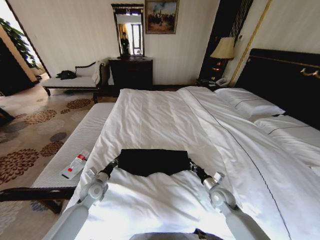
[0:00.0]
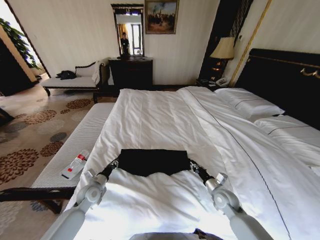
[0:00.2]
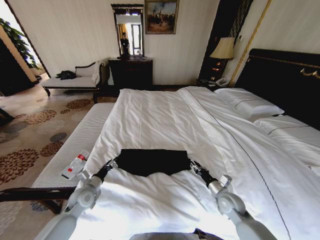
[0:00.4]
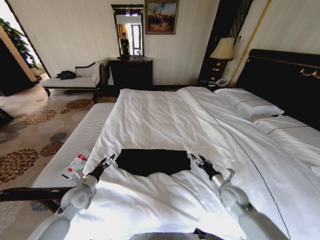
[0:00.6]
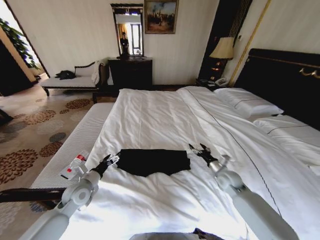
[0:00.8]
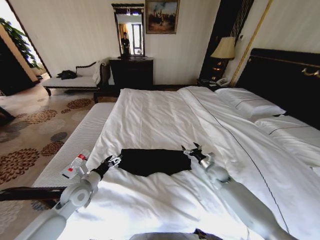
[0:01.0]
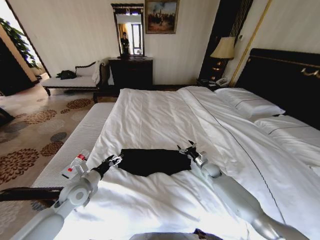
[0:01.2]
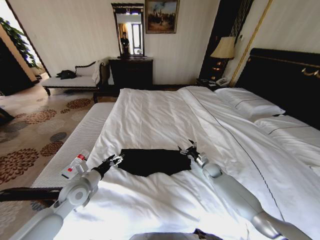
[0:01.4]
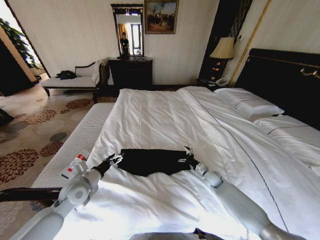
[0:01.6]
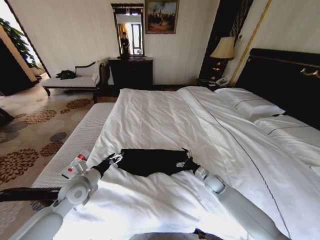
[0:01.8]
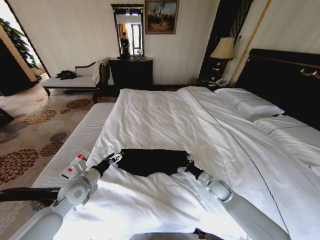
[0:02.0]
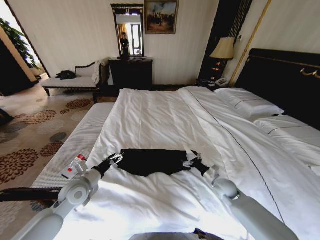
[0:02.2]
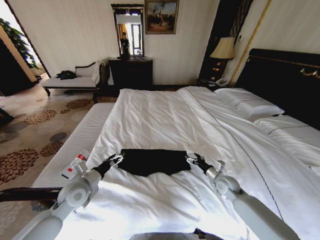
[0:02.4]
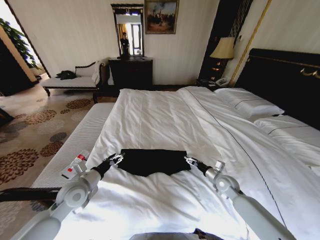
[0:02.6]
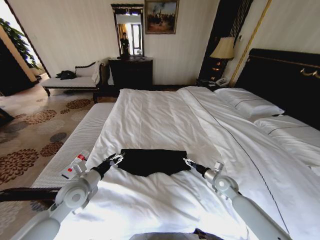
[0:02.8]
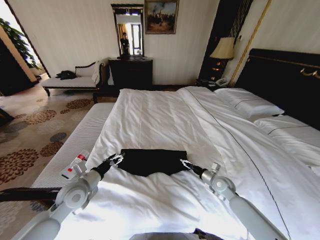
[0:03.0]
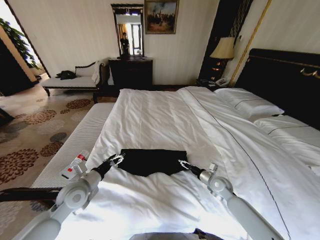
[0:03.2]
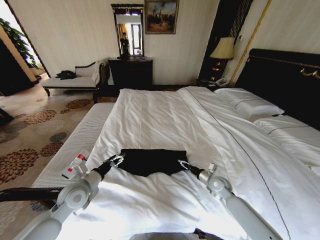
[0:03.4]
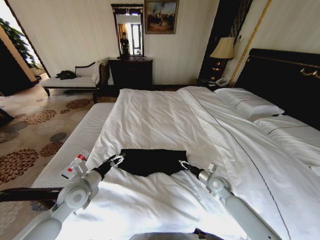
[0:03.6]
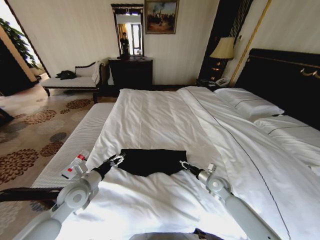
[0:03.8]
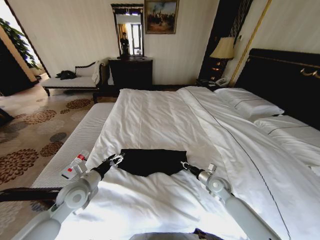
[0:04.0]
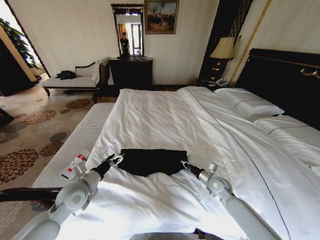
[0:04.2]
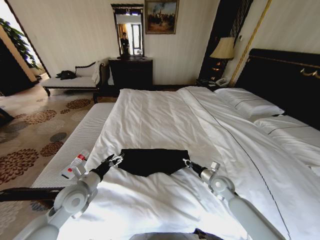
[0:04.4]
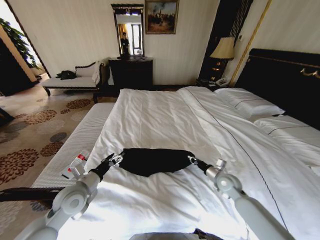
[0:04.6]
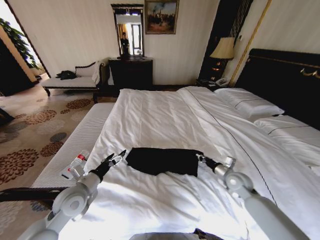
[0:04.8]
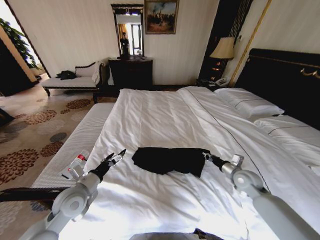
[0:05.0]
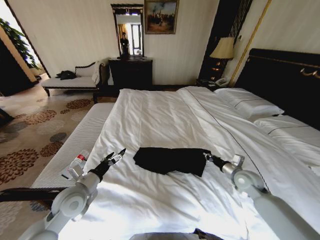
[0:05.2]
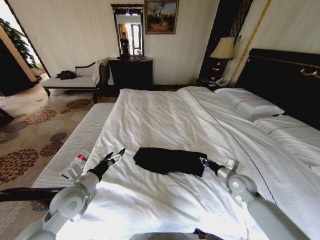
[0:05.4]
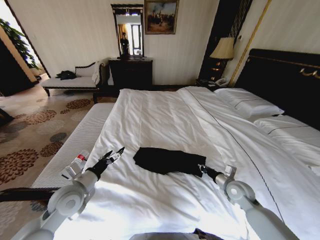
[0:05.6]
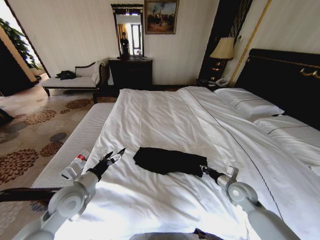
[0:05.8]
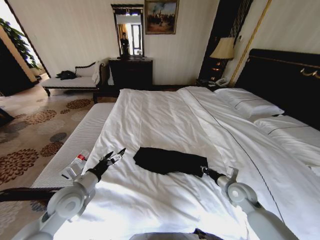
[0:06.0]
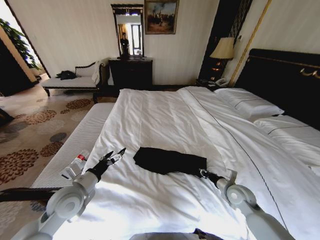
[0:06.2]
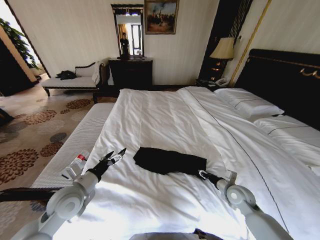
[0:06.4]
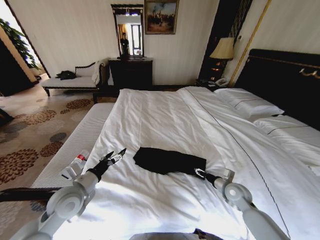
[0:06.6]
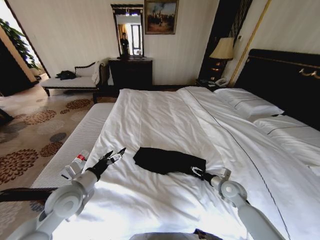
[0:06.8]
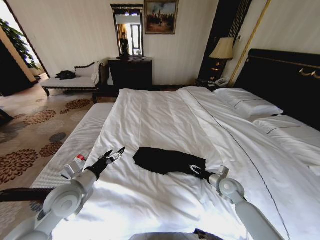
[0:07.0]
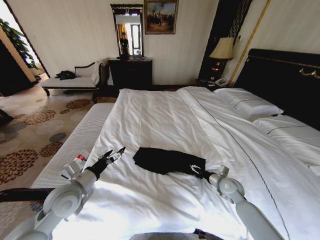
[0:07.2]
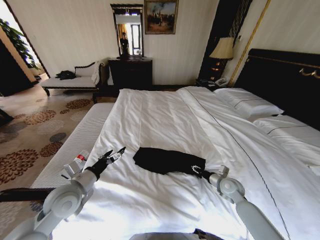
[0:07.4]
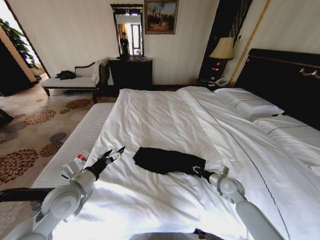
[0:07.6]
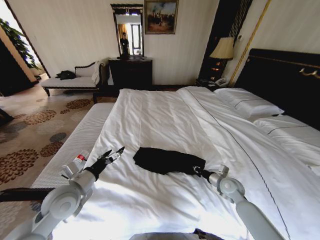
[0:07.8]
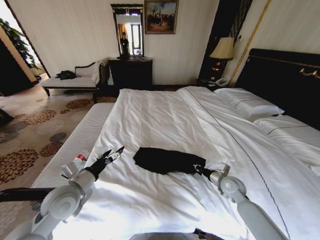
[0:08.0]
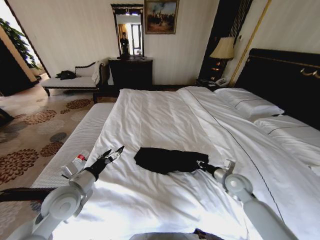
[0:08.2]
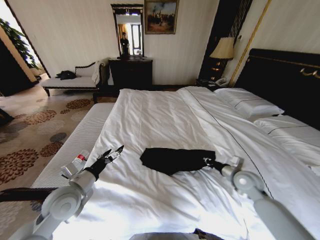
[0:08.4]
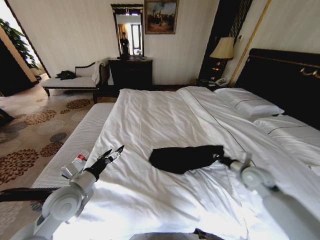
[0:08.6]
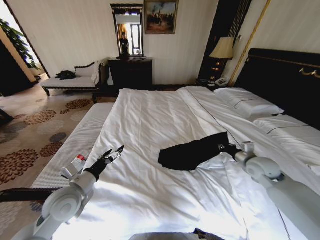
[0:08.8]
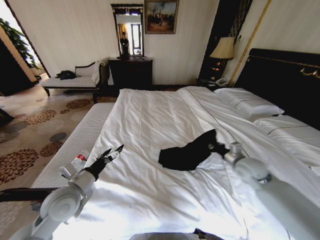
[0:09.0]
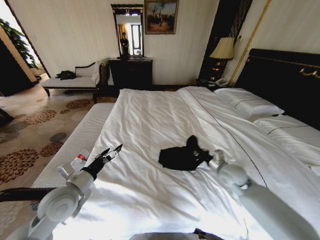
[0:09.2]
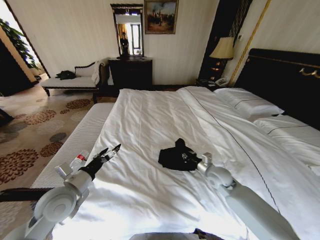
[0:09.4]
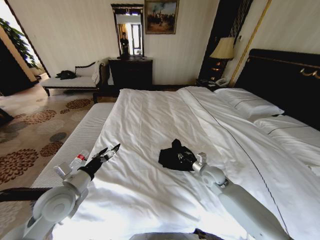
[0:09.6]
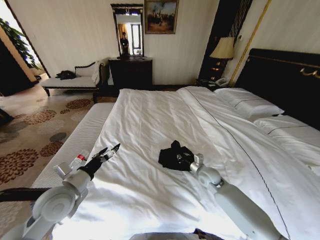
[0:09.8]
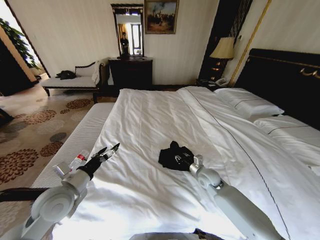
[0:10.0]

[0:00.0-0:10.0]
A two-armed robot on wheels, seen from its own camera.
Task of the whole recording: Fold the clothes on the bed.
0:00.0 to 0:01.4: The left gripper shifts roughly 10 cm upward, and opens its fingers, while the right gripper shifts about 15 cm forward, and opens.
0:01.4 to 0:02.8: The right gripper shifts about 10 cm backward.
0:02.8 to 0:04.2: The right gripper closes its fingers.
0:04.2 to 0:05.8: The right gripper shifts roughly 5 cm upward.
0:05.8 to 0:07.2: The right gripper opens up.
0:07.2 to 0:08.6: The right gripper shifts some 10 cm upward and to the right, and closes.
0:08.6 to 0:10.0: The right gripper heads to the left and downward, covering about 20 cm.

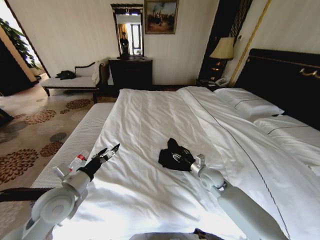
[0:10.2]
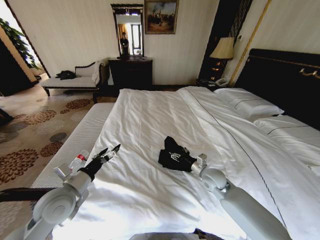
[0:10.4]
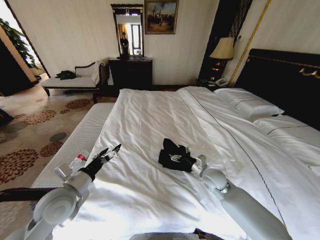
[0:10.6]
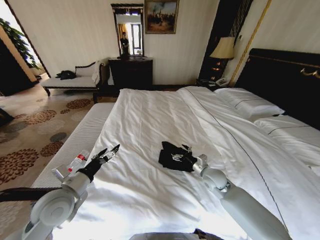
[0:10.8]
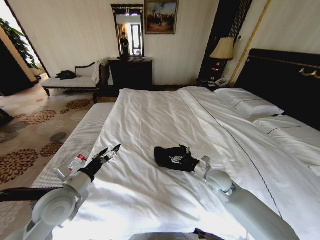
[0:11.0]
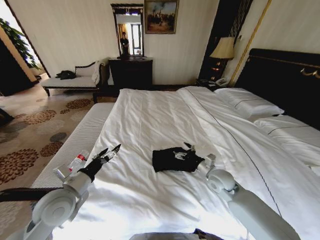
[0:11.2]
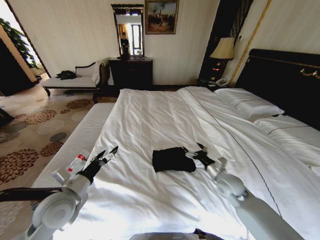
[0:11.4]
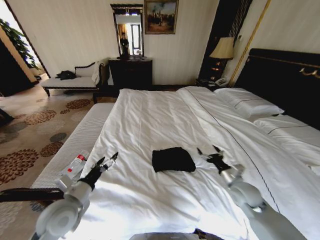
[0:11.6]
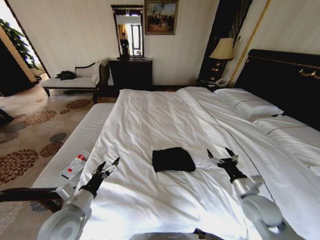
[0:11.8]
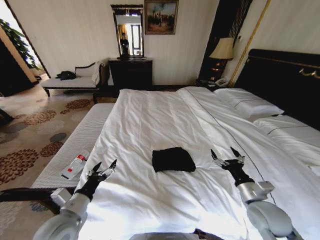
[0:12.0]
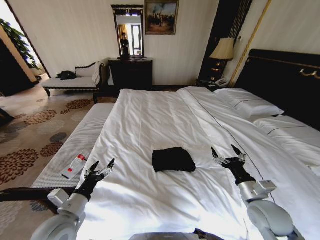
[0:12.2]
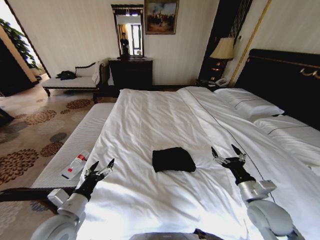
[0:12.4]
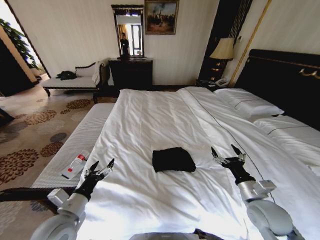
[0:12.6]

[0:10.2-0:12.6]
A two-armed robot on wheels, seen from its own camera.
Task of the whole recording: Fold the clothes on the bed.
0:10.2 to 0:11.4: The right gripper heads to the right, covering roughly 5 cm, and opens up.
0:11.4 to 0:12.6: The right gripper moves backward, some 10 cm; the left gripper is displaced backward by about 5 cm.
